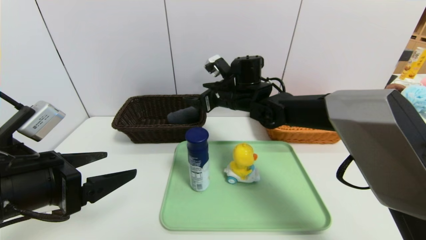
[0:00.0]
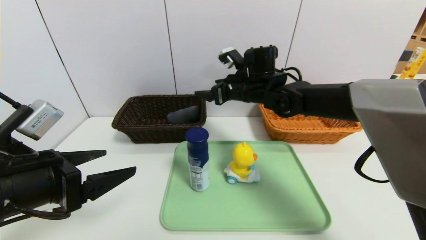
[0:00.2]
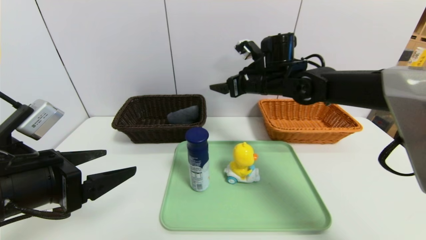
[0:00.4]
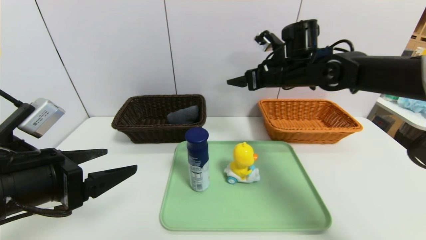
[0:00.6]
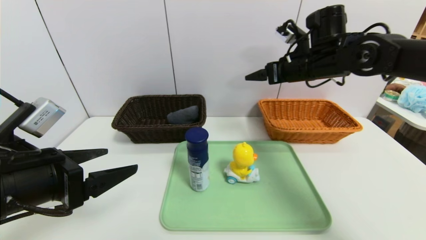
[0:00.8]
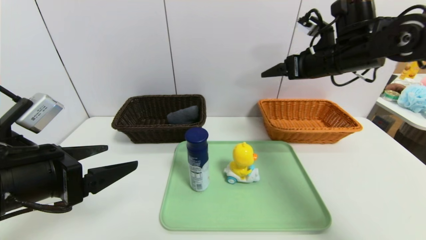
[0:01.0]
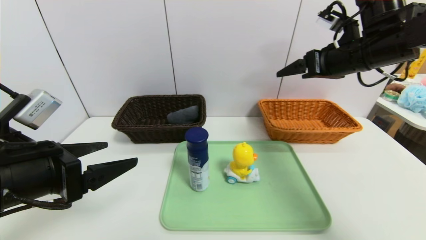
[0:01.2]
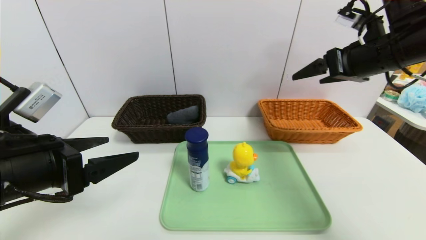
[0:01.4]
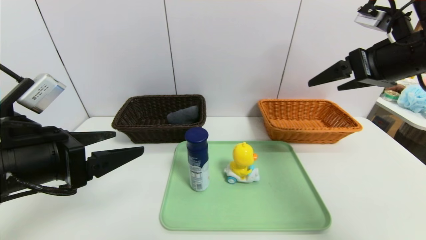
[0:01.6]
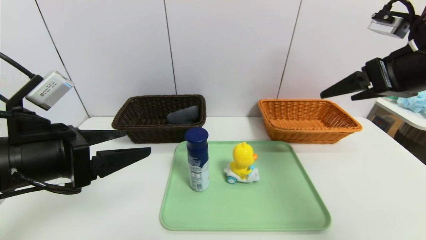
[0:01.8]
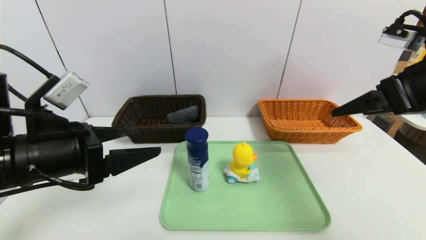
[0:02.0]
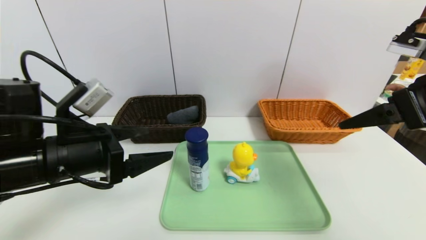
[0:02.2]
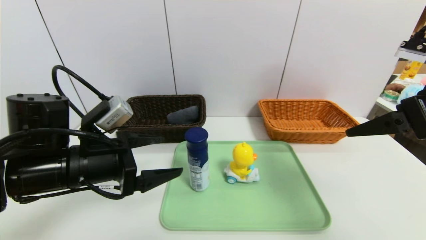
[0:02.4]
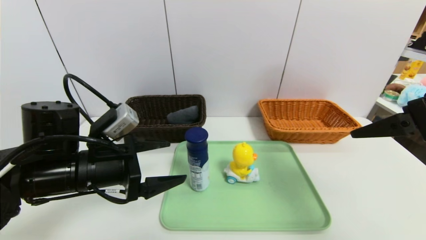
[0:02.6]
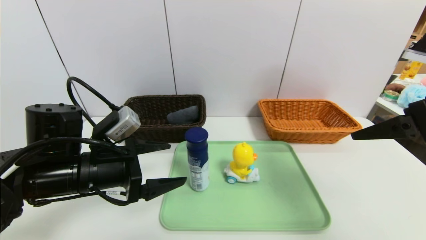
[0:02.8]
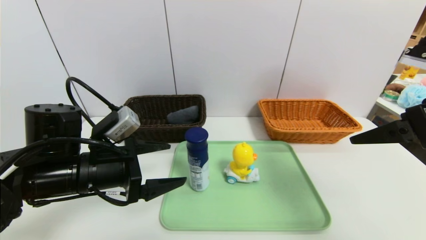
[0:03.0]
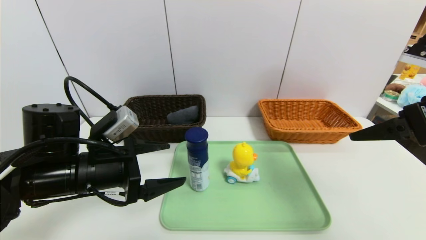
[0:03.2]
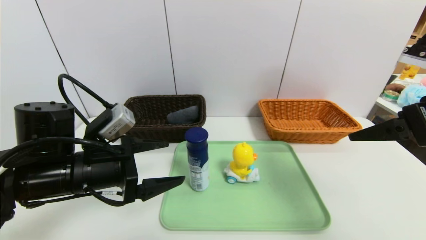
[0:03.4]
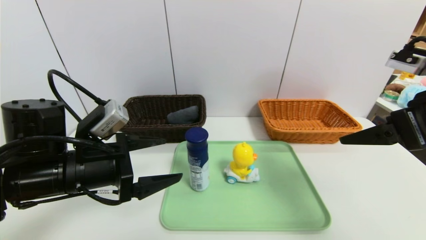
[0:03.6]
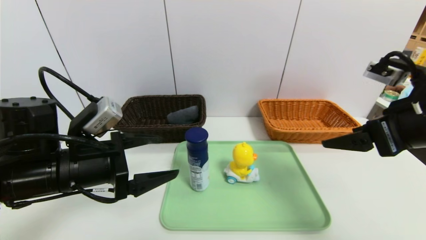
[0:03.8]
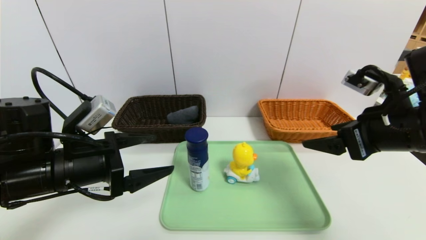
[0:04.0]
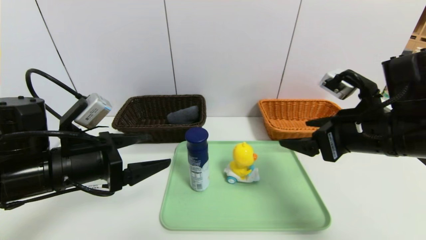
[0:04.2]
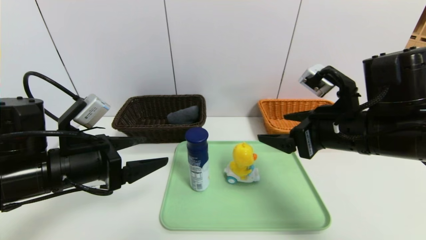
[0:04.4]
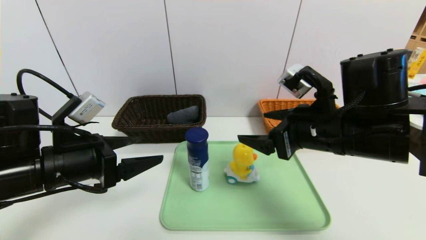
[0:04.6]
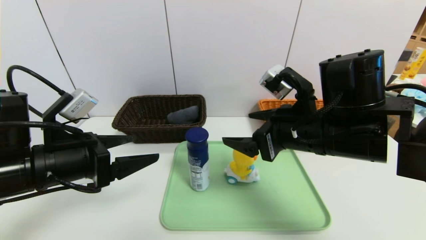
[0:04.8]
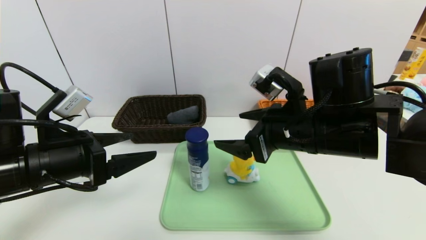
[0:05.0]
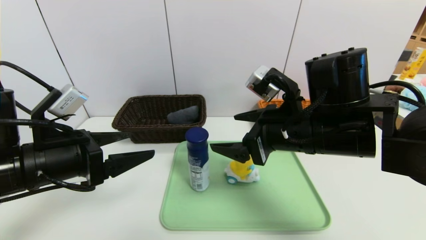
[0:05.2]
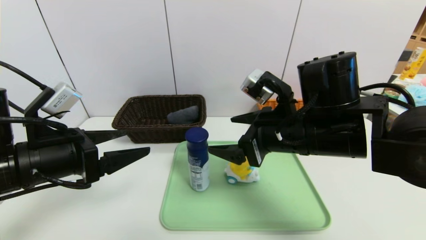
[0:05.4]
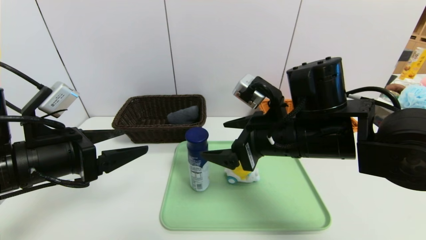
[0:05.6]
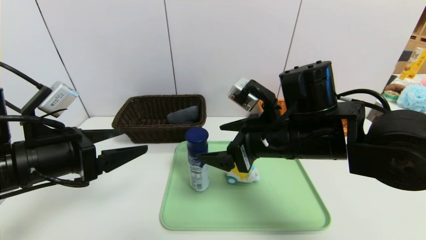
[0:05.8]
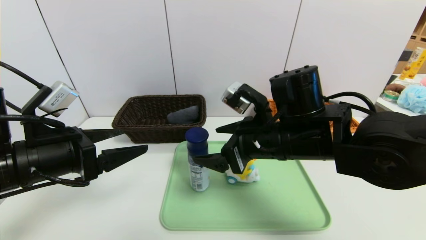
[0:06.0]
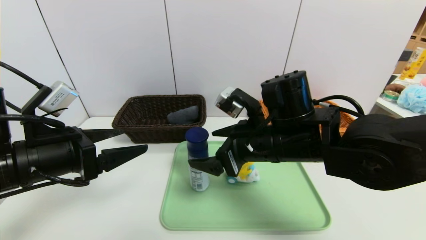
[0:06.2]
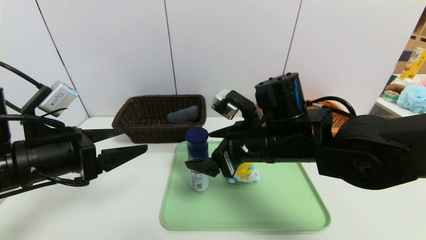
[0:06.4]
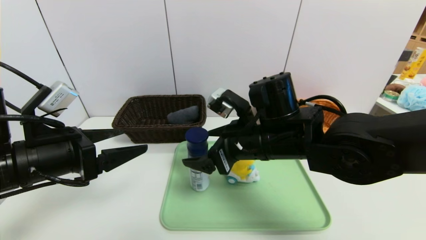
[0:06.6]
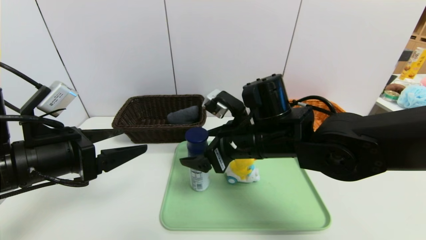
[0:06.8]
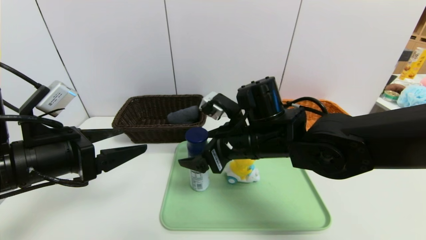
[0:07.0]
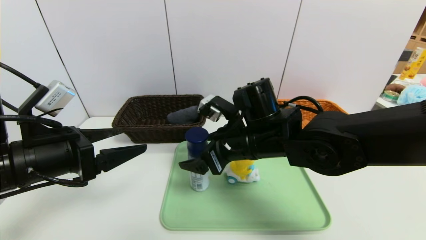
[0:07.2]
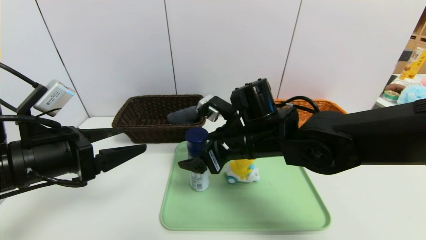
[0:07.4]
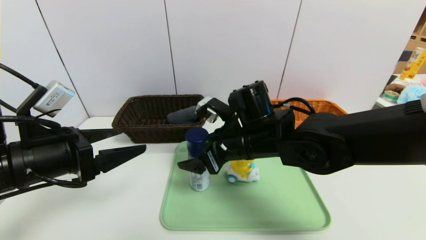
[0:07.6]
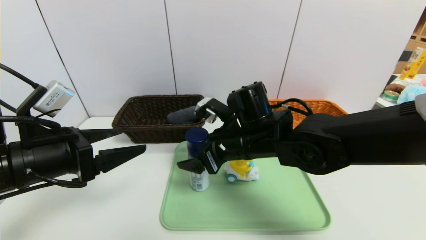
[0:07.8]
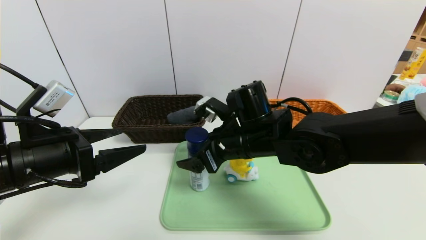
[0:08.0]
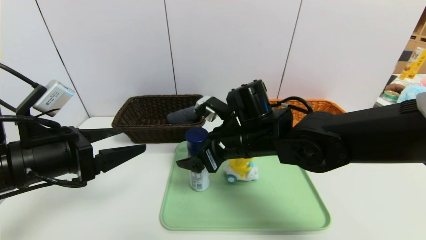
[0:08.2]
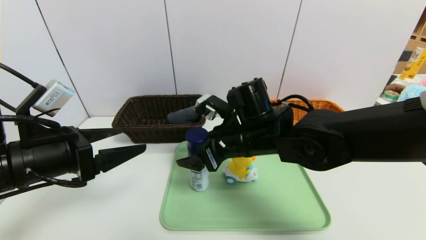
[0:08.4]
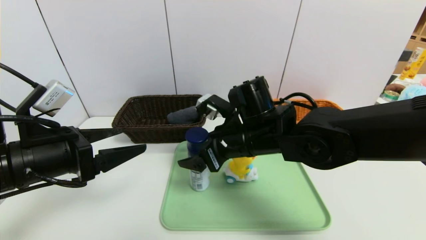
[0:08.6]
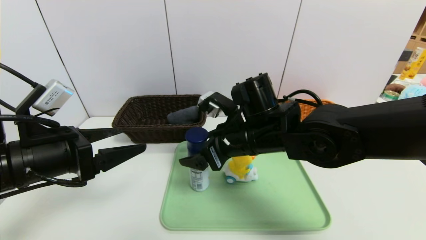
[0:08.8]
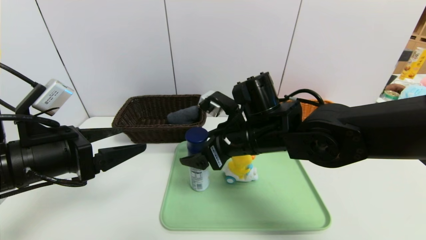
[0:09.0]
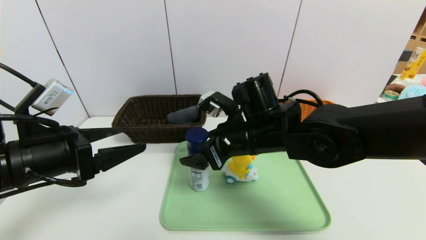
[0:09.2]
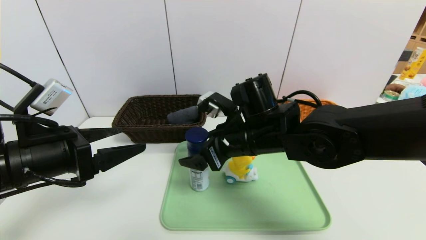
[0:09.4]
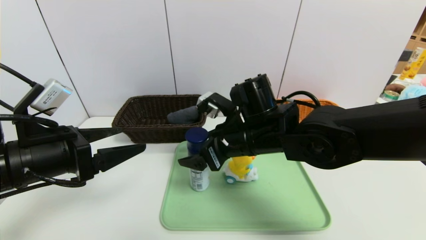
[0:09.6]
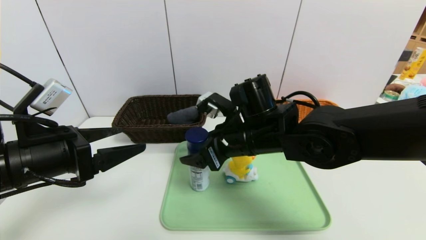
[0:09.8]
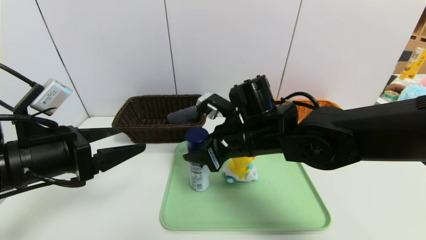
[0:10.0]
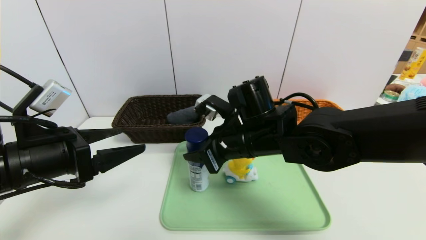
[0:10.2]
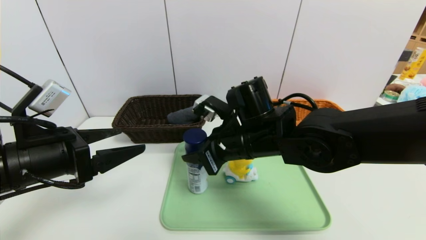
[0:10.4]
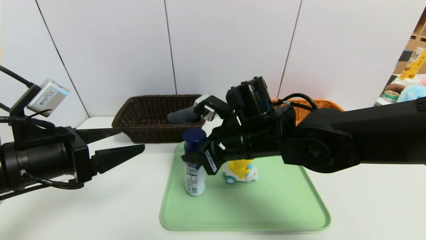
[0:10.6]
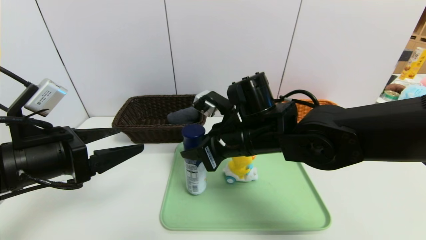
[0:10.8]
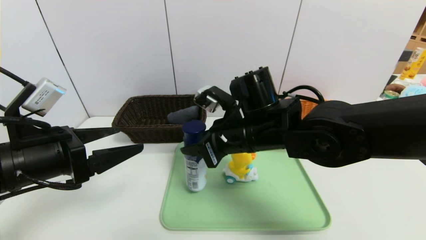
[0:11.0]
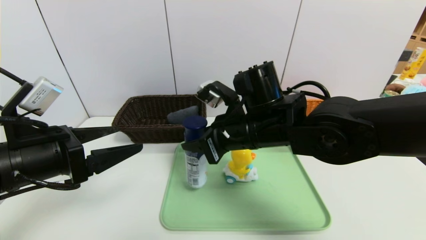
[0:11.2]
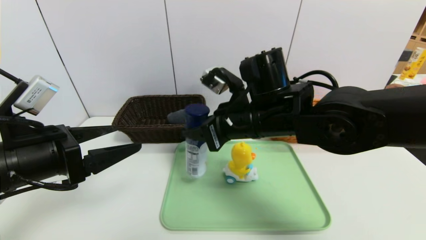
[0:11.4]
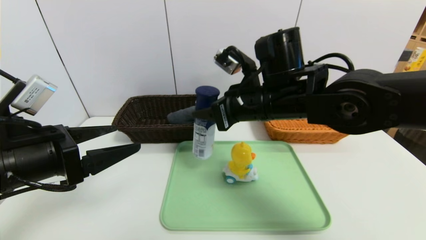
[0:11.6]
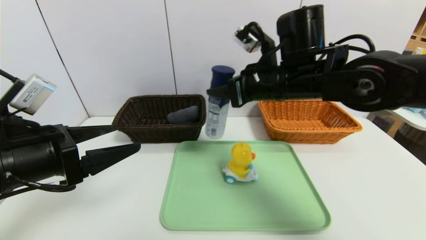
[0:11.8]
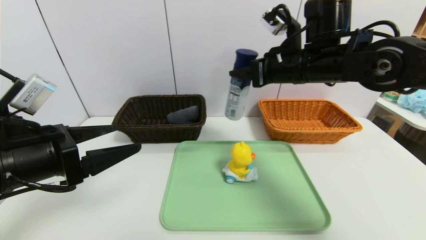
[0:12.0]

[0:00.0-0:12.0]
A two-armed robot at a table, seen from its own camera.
Task of the whole recording: place the food in the right basket with the right gripper, and place the non food items in the left basket with the left gripper.
0:00.0 to 0:01.6: The right gripper shifts some 30 cm to the right, backward and upward.
0:01.6 to 0:03.0: The left gripper travels downward and forward by some 10 cm. The right gripper travels backward by some 10 cm.
0:03.0 to 0:04.4: The right gripper shifts about 10 cm to the left and downward.
0:04.4 to 0:06.0: The right gripper heads to the left, covering approximately 10 cm.
0:06.0 to 0:07.6: The right gripper changes place by roughly 5 cm.
0:07.6 to 0:09.0: There are only small adjustments of the grippers.
0:09.0 to 0:10.4: The right gripper closes its fingers.
0:10.4 to 0:12.0: The right gripper travels upward, to the right and forward by some 15 cm.

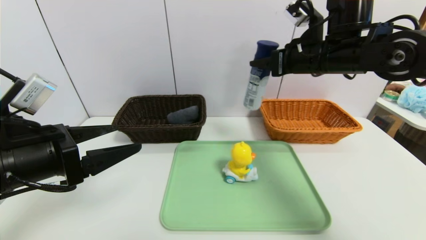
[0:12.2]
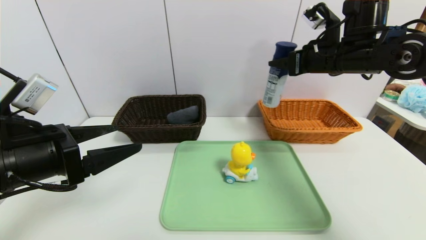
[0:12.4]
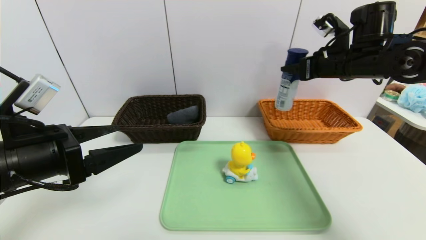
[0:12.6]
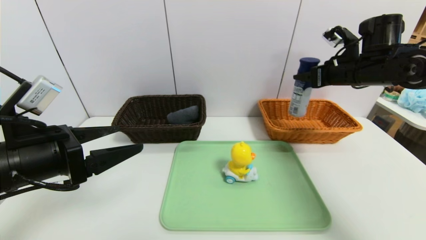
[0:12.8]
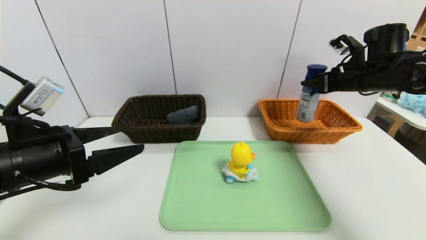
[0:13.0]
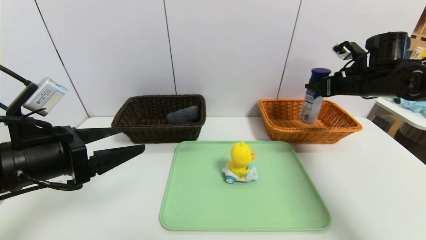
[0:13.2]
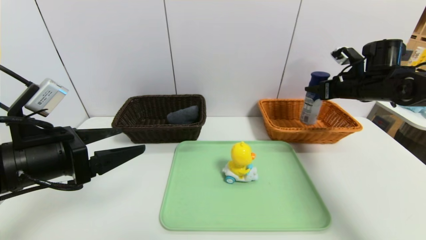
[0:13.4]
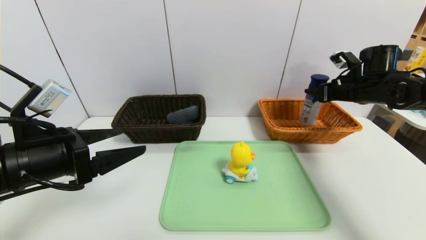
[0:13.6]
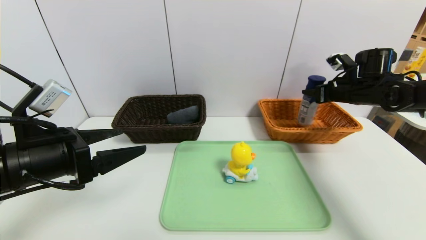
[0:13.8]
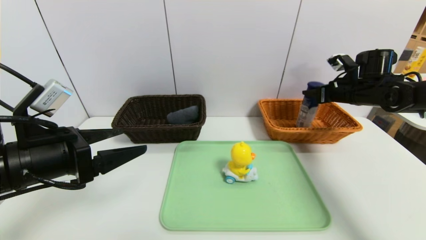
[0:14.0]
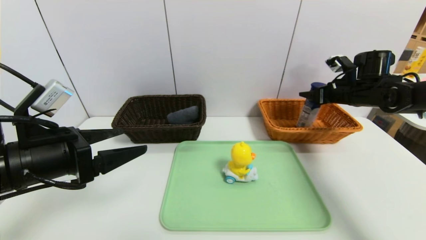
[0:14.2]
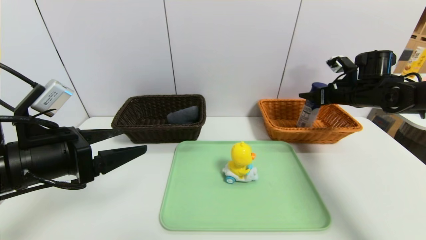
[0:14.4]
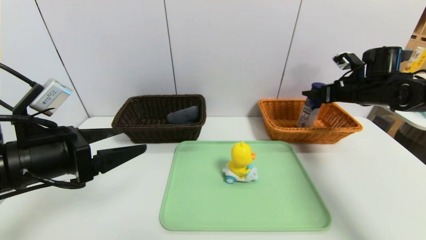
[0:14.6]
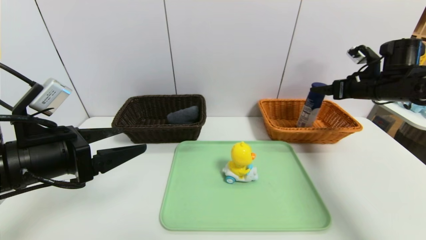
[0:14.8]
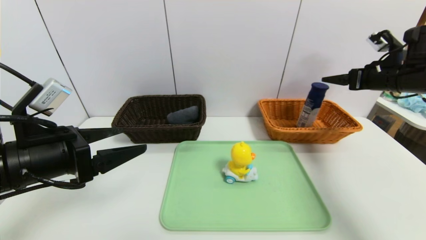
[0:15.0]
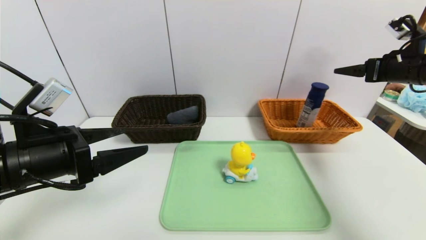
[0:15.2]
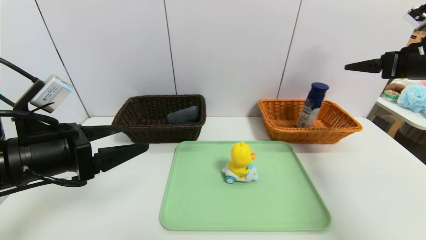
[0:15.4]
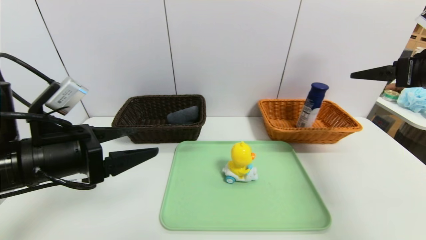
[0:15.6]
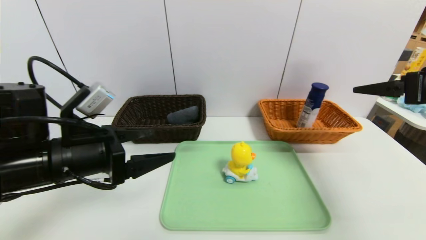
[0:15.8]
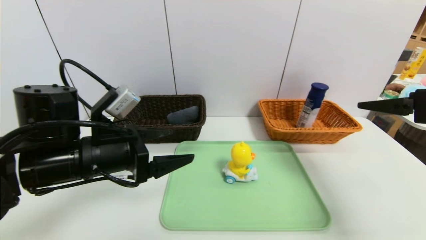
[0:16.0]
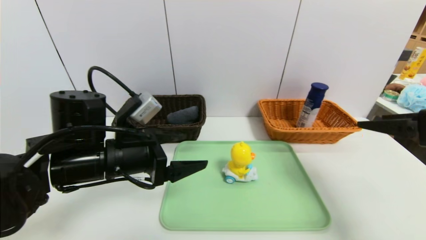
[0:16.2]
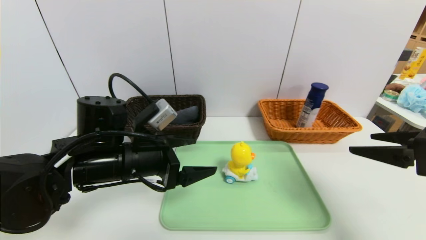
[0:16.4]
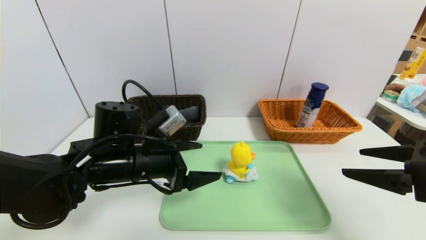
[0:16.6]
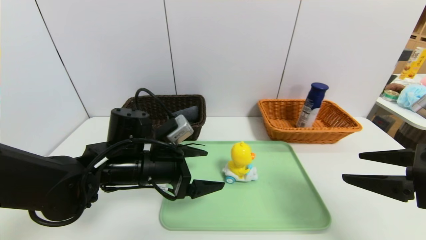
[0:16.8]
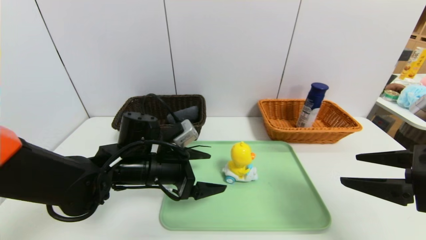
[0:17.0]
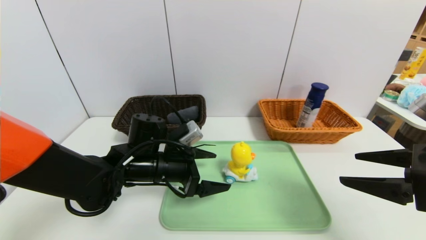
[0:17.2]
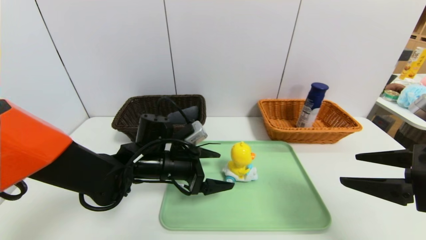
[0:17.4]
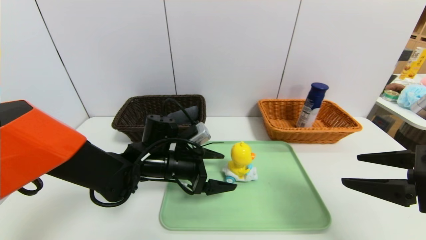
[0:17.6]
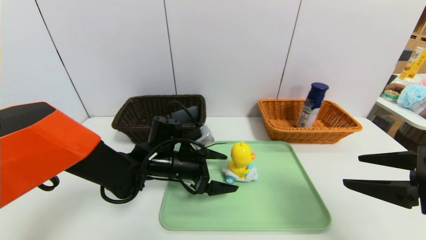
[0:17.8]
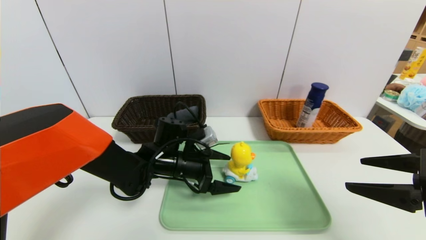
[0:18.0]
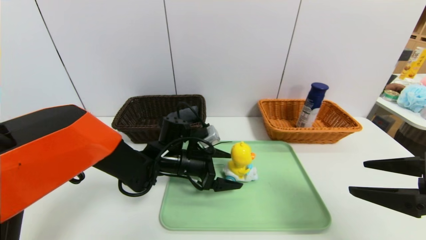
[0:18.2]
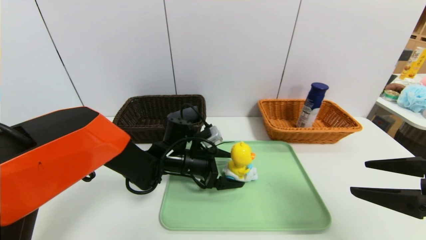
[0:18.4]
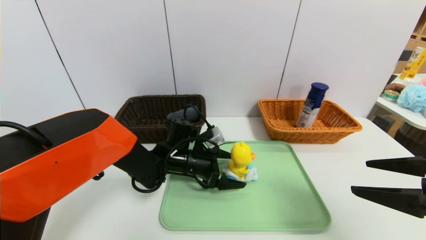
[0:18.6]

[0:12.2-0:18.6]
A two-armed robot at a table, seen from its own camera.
Task of the whole recording: place the food in the right basket with the right gripper, and place the non food items in the left basket with the left gripper.
Step, 0:12.2 to 0:14.8: Grasp the yogurt and put it in the right basket.
0:12.2 to 0:13.8: The right gripper heads to the right, downward and forward, covering approximately 20 cm.
0:13.8 to 0:15.4: The right gripper is displaced backward and upward by about 15 cm, and opens its fingers.
0:15.4 to 0:17.0: The left gripper travels to the right, downward and forward by about 15 cm. Meanwhile the right gripper goes approximately 20 cm backward, downward and to the left.
0:17.0 to 0:18.6: The left gripper goes roughly 10 cm forward, downward and to the right.
